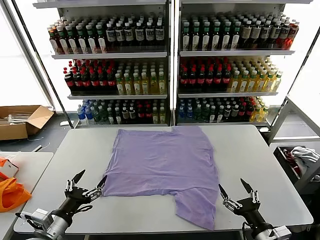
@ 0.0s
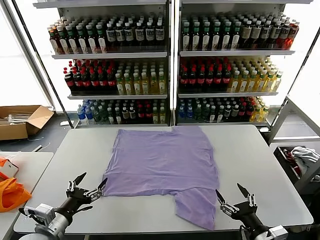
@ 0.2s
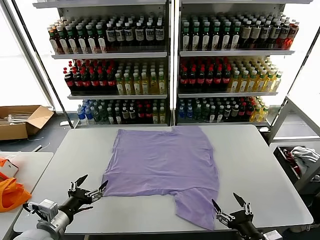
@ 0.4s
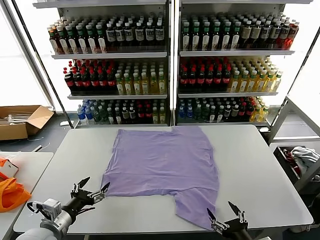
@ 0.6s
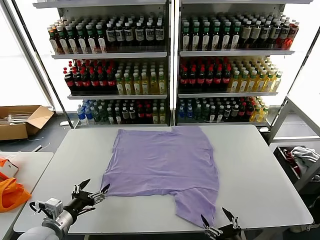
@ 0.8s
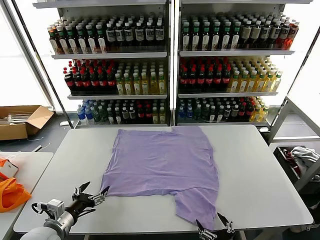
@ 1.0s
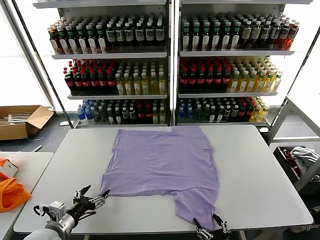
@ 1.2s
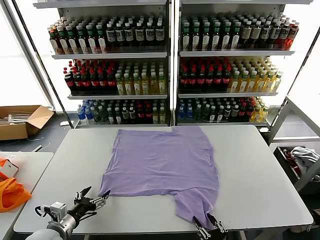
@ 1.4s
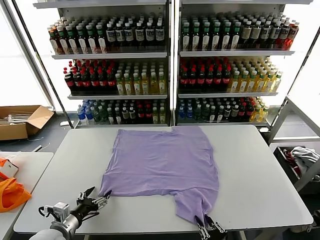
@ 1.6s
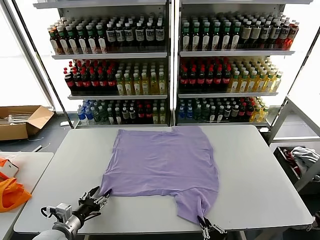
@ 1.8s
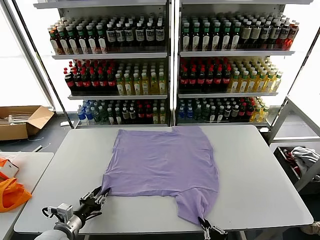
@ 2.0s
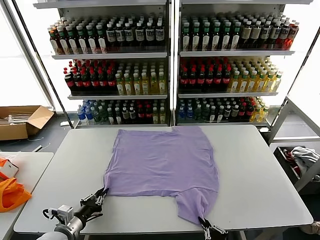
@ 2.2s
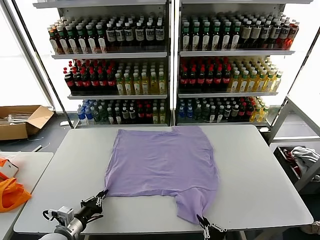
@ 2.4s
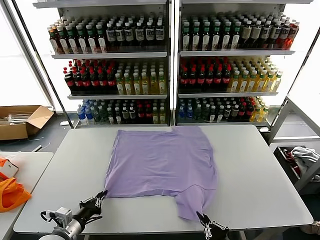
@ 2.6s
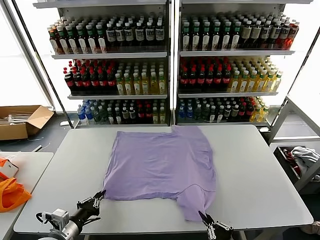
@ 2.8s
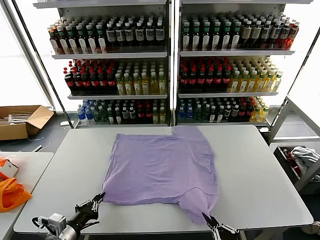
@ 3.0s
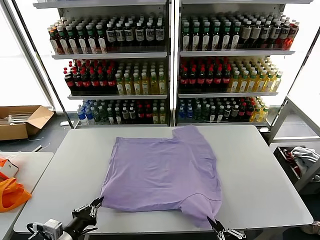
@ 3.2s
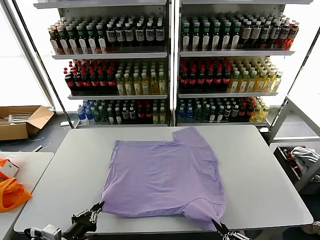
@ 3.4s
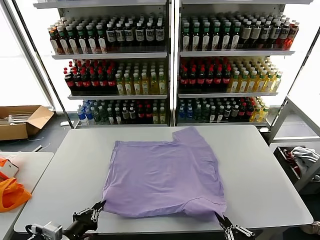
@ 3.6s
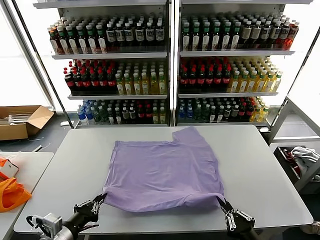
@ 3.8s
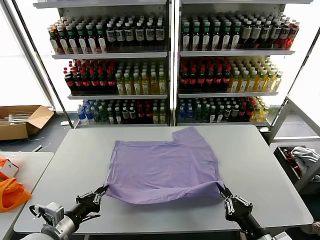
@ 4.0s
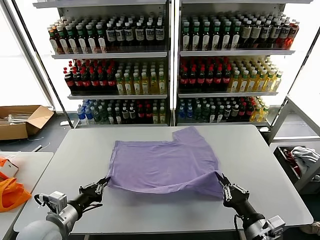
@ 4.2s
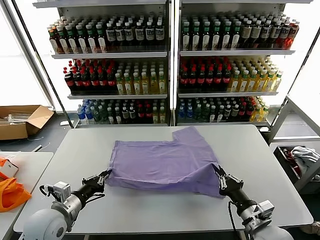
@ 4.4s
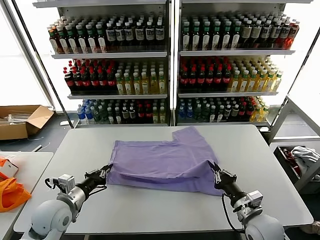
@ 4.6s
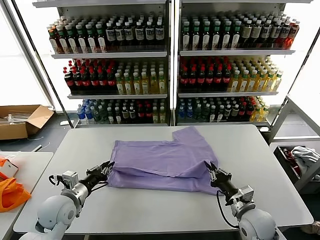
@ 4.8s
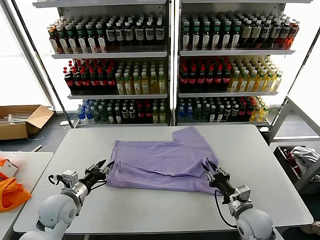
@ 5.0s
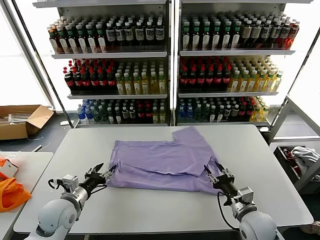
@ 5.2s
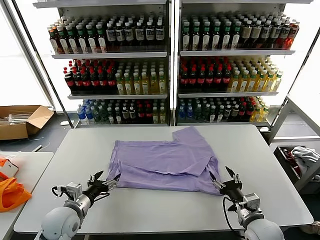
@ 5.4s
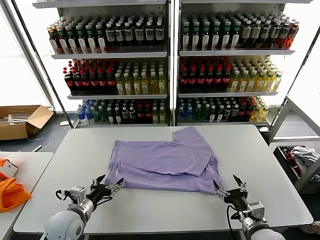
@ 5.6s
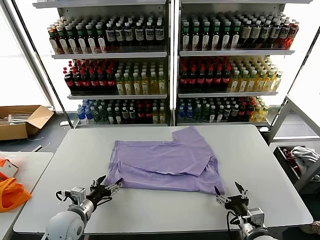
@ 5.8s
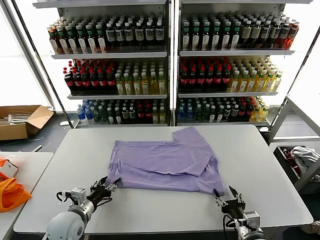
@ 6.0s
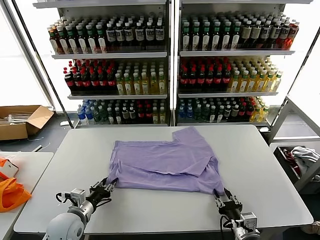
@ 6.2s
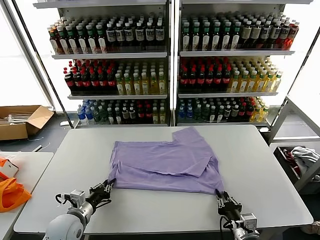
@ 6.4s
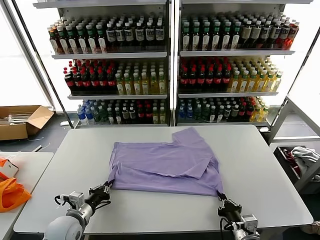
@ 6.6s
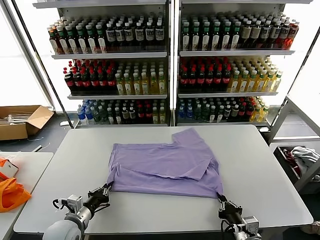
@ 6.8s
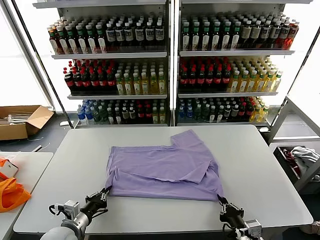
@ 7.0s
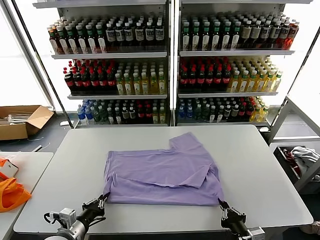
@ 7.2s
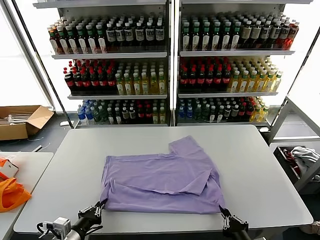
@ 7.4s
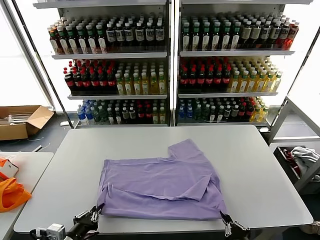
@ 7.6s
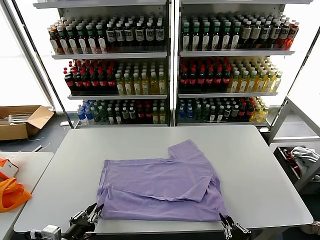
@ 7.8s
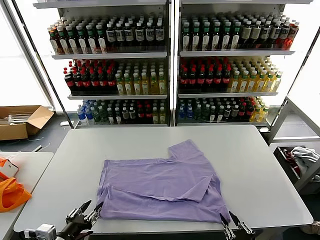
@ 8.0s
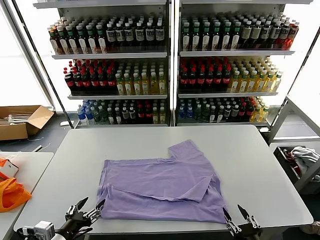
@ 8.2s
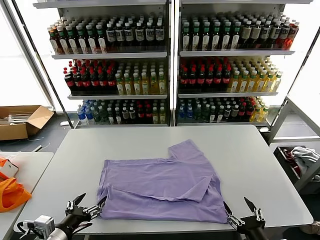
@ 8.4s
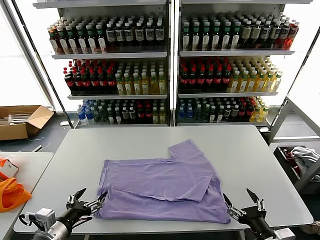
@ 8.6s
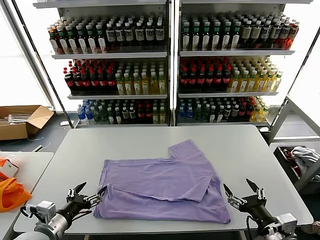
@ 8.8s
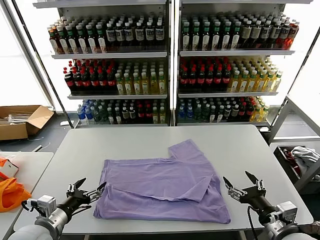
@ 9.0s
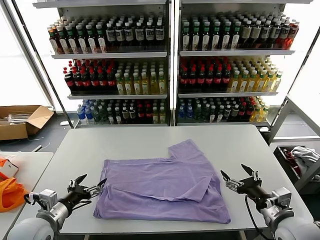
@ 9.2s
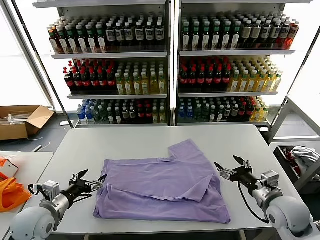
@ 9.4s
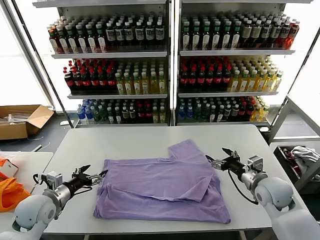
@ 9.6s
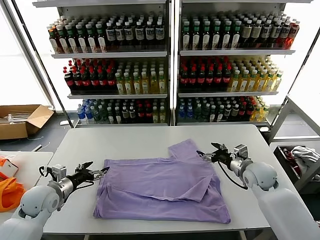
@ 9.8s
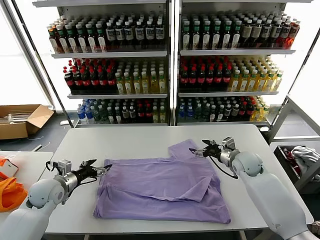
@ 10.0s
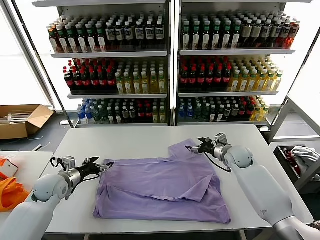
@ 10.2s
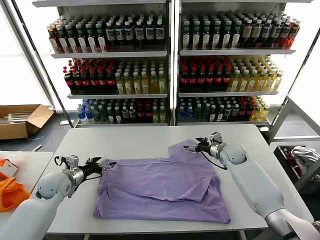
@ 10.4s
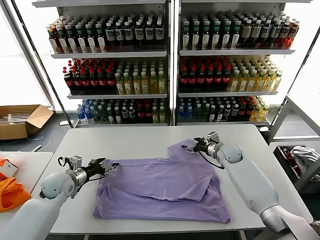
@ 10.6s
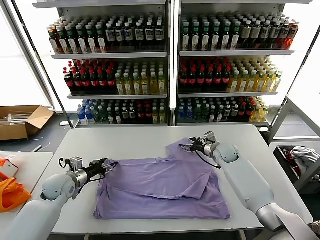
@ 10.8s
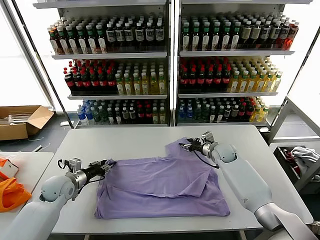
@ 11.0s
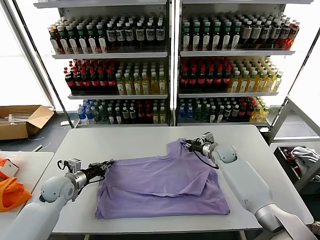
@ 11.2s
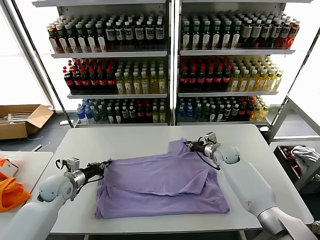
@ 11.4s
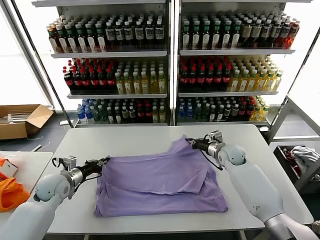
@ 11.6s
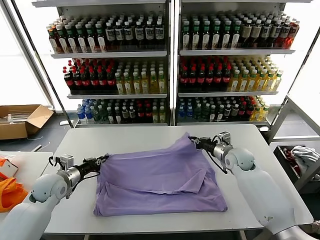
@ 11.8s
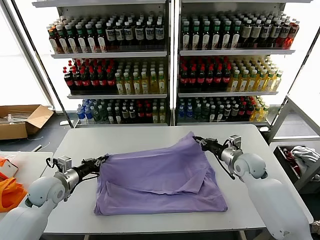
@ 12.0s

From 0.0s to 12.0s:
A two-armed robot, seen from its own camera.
Task of the whole recording: fold and organize the clothes.
Step, from 0.0s to 2.4s: use both grippers simultaneously to clamp the lower edge of the clothing fabric.
Step, from 2.6s to 5.0s: use both grippers to drag the lower edge of the fabric forward and fold it over the upper edge.
Step, from 5.2s to 8.0s: Drag the clothes downward with both gripper.
Step, from 8.2s to 11.4s: use both grippers simultaneously to clamp the upper edge of the clothing fabric.
From 1.6s to 3.0s: The right gripper is displaced upward by about 5 cm, while the left gripper shifts by some 5 cm, and closes its fingers.
From 3.0s to 4.4s: The right gripper shifts roughly 15 cm forward. The left gripper is displaced forward by about 10 cm.
From 4.4s to 6.0s: The right gripper shifts by about 5 cm, and opens its fingers; the left gripper heads downward, covering about 10 cm, and opens up.
From 6.0s to 7.6s: The grippers both shift backward by about 10 cm. The right gripper closes its fingers. Meanwhile the left gripper closes its fingers.
From 7.6s to 9.0s: The right gripper travels forward, upward and to the right by about 15 cm, and opens its fingers. Meanwhile the left gripper is displaced forward by some 5 cm, and opens its fingers.
From 9.0s to 10.4s: The left gripper goes approximately 20 cm forward, while the right gripper heads forward, covering some 35 cm.
From 10.4s to 12.0s: The left gripper closes, while the right gripper is displaced backward by some 10 cm, and closes up.

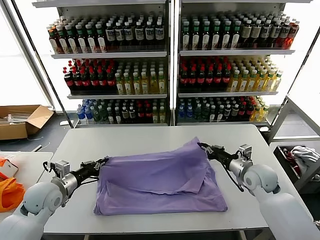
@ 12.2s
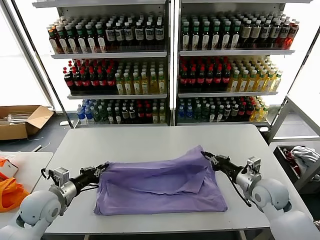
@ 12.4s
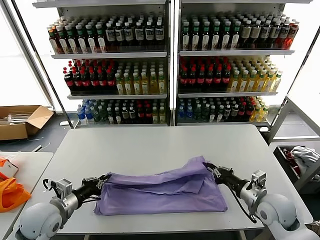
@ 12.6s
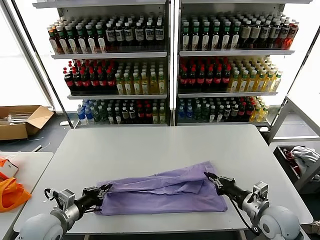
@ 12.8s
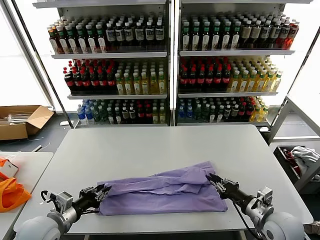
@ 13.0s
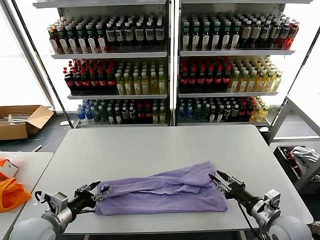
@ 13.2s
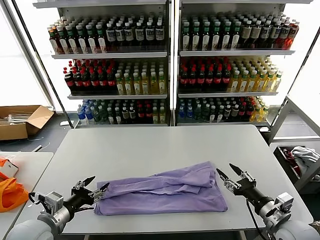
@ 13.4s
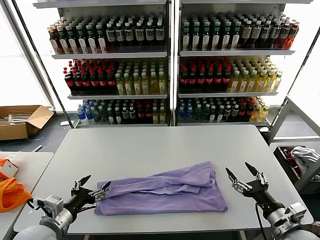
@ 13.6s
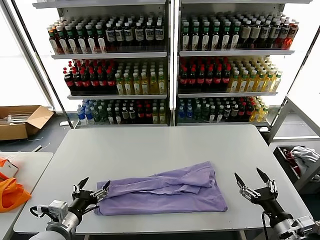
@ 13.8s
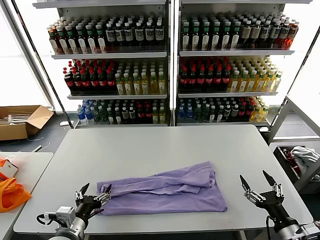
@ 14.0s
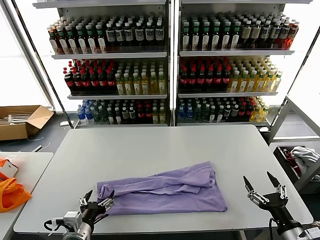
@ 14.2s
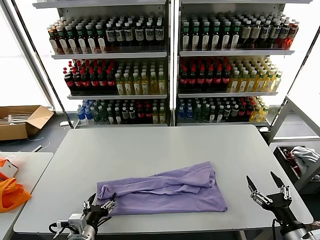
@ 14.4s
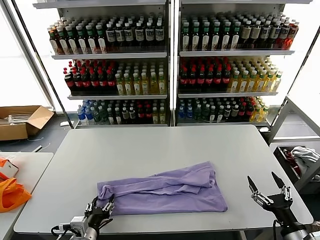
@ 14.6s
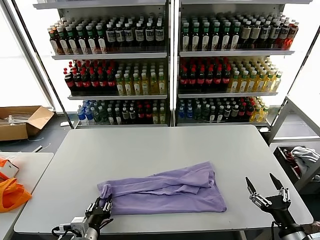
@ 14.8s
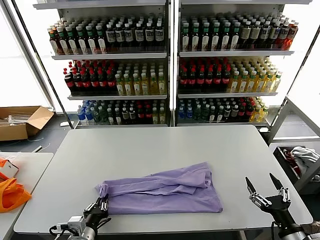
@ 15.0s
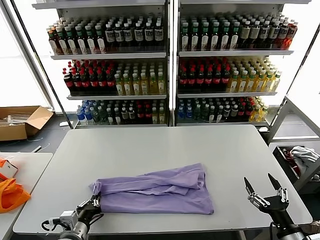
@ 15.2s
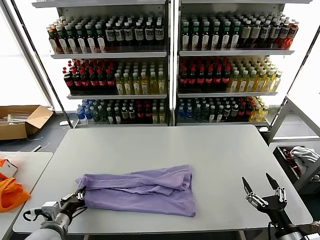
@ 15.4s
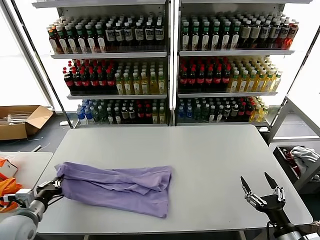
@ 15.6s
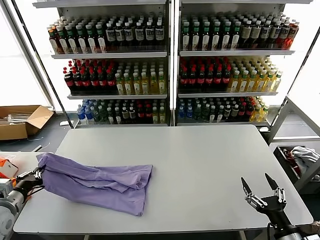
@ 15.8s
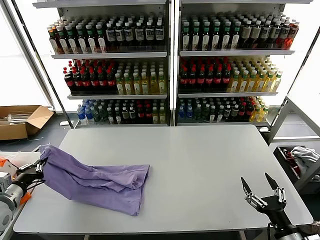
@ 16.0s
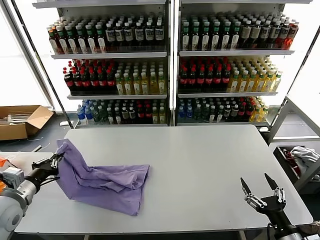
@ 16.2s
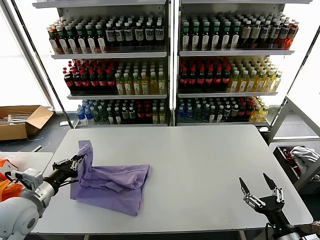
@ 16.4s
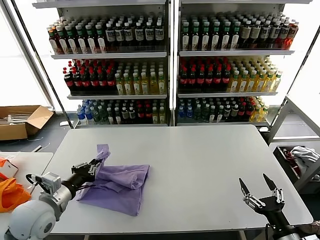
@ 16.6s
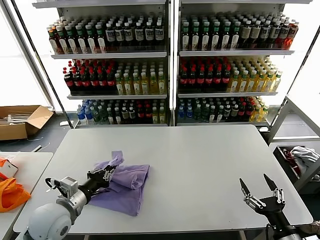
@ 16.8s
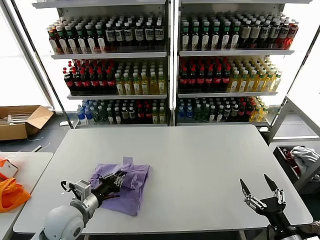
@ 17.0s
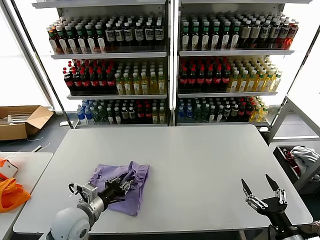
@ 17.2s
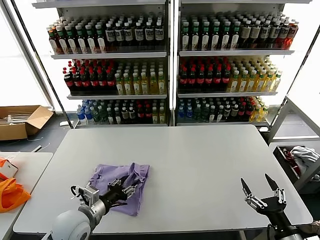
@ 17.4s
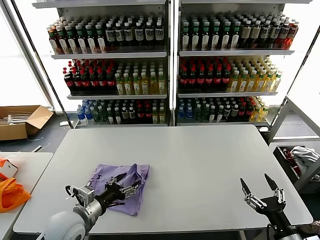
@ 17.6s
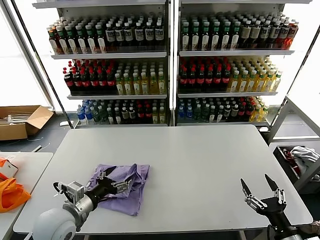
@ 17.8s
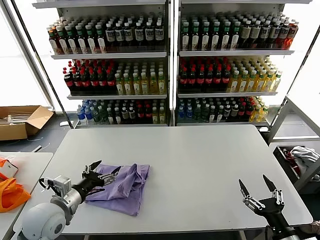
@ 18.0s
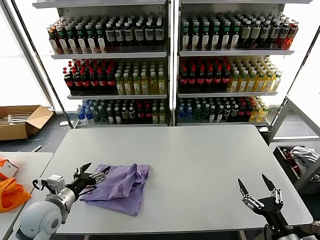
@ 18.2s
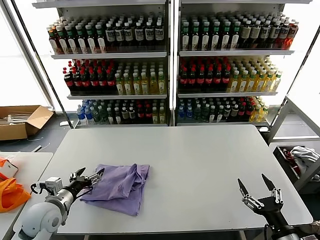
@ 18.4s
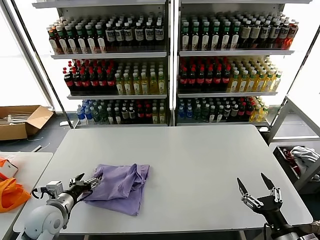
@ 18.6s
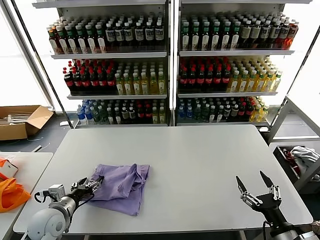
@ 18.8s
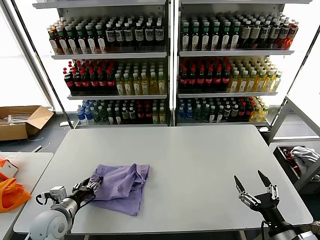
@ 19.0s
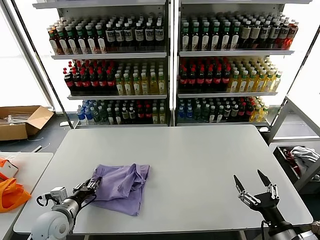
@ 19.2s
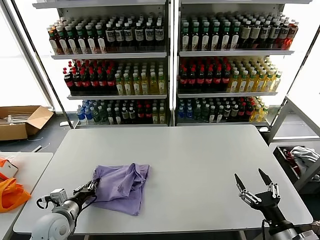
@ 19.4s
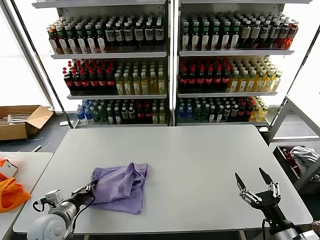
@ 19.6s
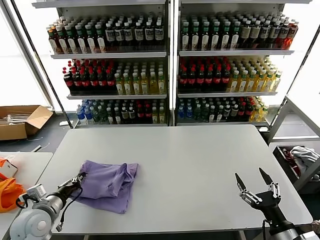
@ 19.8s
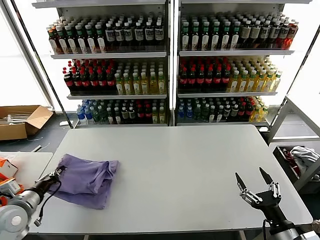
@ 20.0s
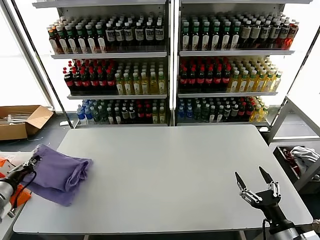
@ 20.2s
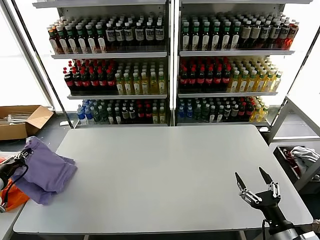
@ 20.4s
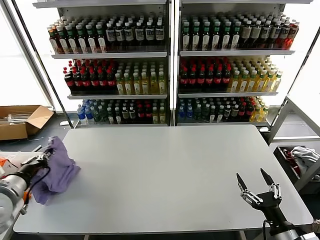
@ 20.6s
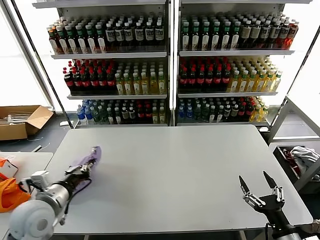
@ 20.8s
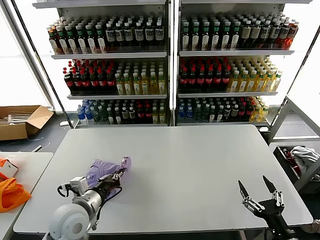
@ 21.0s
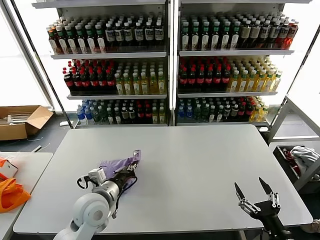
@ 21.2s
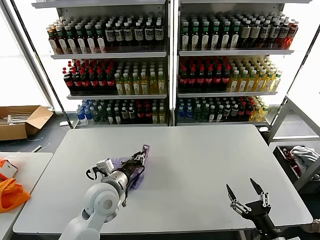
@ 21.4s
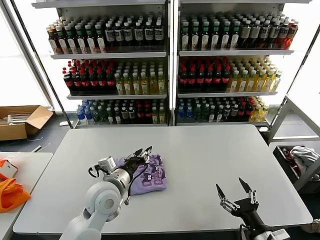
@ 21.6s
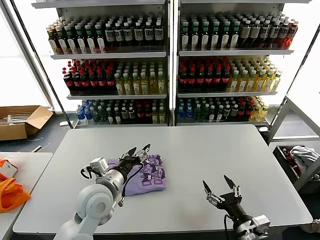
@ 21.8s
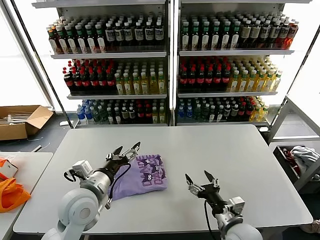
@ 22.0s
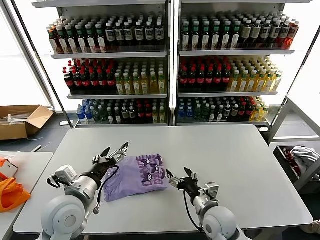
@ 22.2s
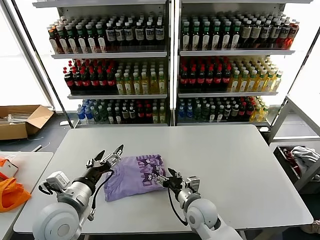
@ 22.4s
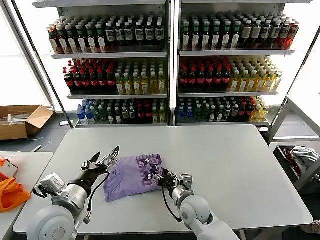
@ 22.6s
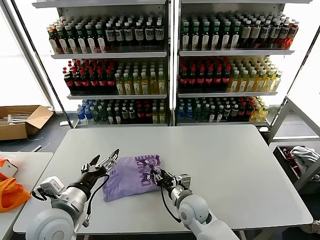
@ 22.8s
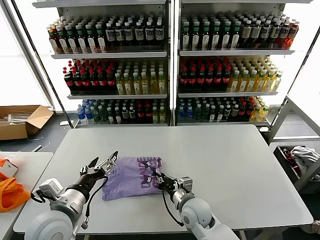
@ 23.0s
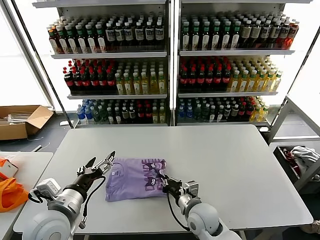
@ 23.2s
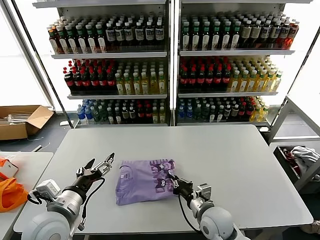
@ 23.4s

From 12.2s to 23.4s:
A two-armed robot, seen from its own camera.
Task of the whole recording: fold and organize the clothes.
Step, from 12.2s to 13.0s: use both grippers to drag the upper edge of the fabric backward and fold it over the lower edge.
Step, from 13.2s to 15.0s: use the left gripper to clamp the left edge of the fabric.
Step, from 15.2s to 17.4s: use the left gripper to drag the left edge of the fabric to the left and folds it over the right edge.
Step, from 17.6s to 21.4s: Flip the folded clothes over with left gripper.
From 12.2s to 13.8s: The left gripper travels backward and to the right by about 15 cm, and opens its fingers. The right gripper is displaced backward by roughly 20 cm, and opens its fingers.
From 13.8s to 15.4s: The left gripper shifts about 5 cm downward, travels to the right and back again, approximately 5 cm each way, and closes.
From 15.4s to 17.0s: The left gripper heads upward and forward, covering approximately 10 cm, and reaches roughly 15 cm to the left, then returns.
From 17.0s to 18.6s: The left gripper shifts some 10 cm to the left, and opens its fingers.
From 18.6s to 20.2s: The left gripper shifts some 15 cm to the left and upward, and closes.
From 20.2s to 21.8s: The left gripper moves to the right, roughly 30 cm, and opens its fingers. Meanwhile the right gripper goes roughly 5 cm to the left.
From 21.8s to 23.4s: The right gripper moves to the left and forward, about 20 cm, and closes its fingers. Meanwhile the left gripper goes some 15 cm to the left and backward.
